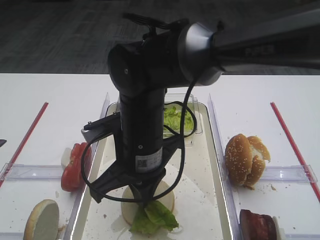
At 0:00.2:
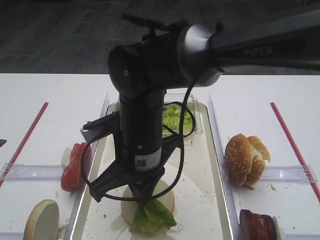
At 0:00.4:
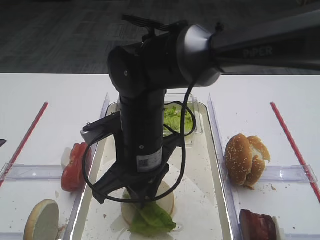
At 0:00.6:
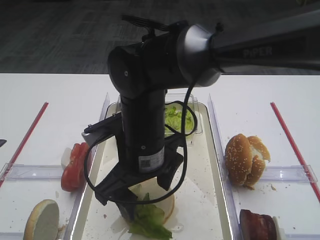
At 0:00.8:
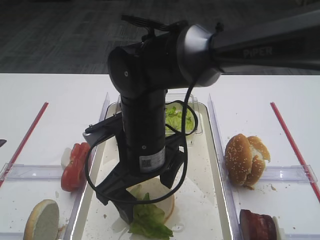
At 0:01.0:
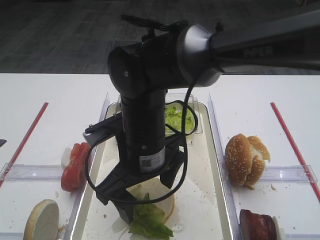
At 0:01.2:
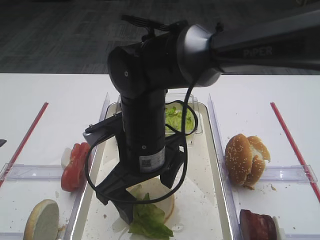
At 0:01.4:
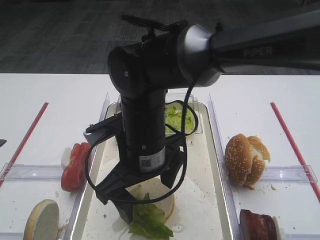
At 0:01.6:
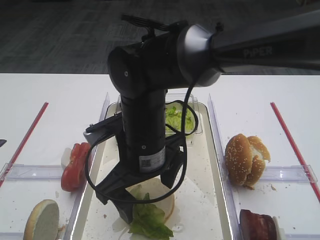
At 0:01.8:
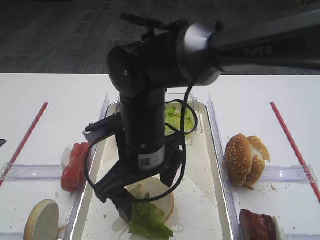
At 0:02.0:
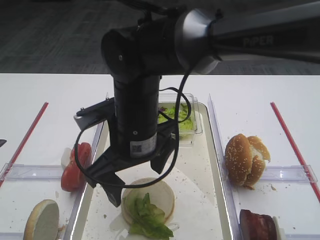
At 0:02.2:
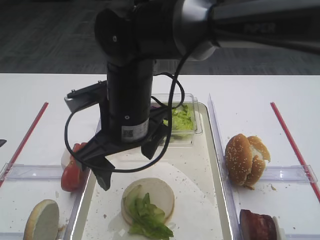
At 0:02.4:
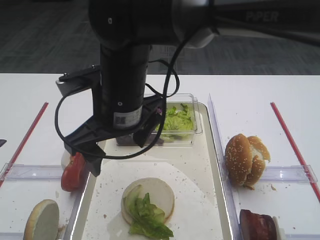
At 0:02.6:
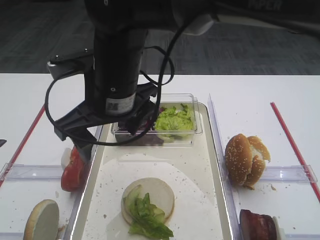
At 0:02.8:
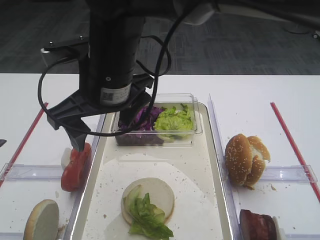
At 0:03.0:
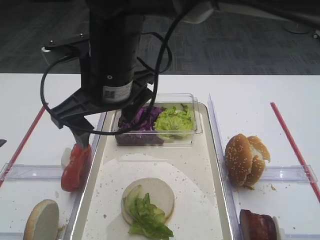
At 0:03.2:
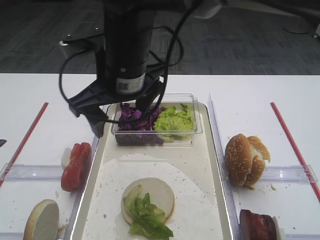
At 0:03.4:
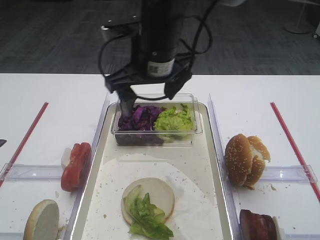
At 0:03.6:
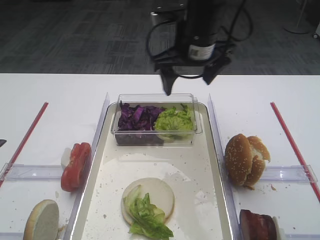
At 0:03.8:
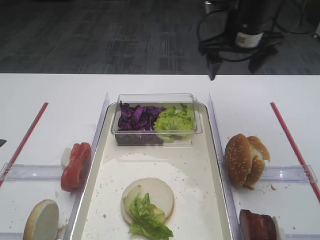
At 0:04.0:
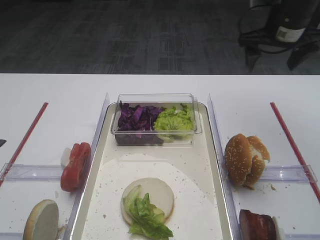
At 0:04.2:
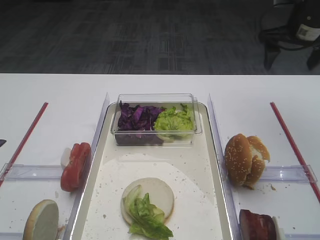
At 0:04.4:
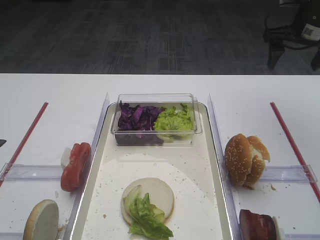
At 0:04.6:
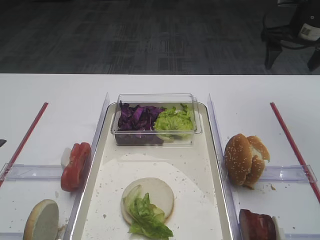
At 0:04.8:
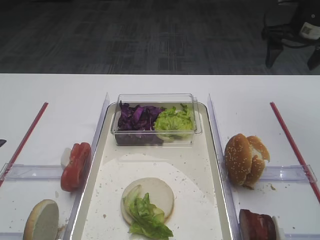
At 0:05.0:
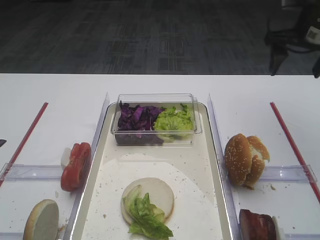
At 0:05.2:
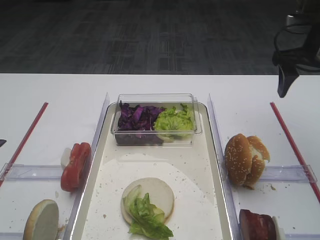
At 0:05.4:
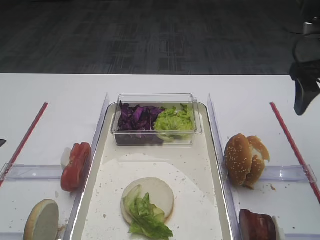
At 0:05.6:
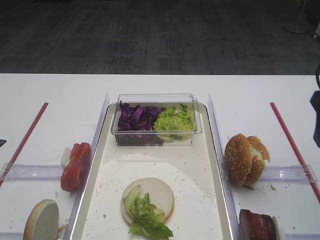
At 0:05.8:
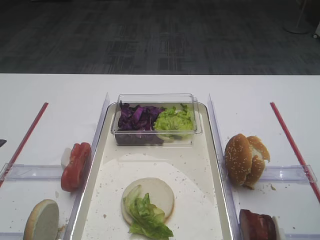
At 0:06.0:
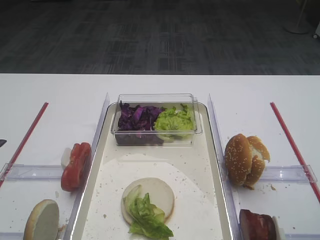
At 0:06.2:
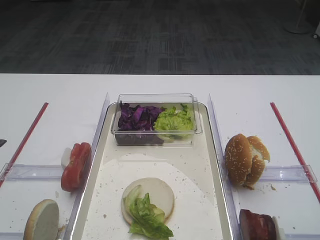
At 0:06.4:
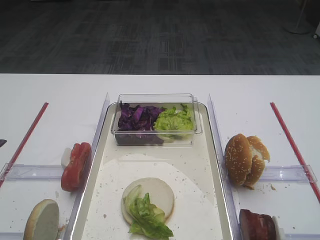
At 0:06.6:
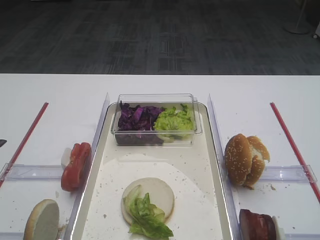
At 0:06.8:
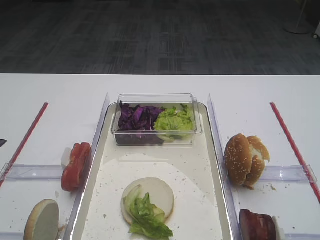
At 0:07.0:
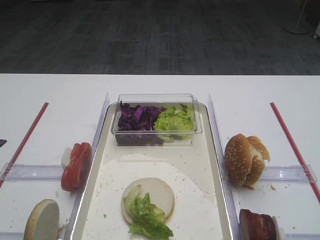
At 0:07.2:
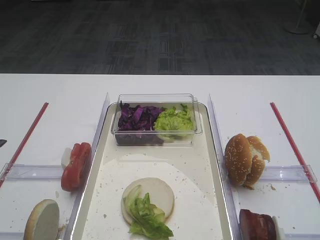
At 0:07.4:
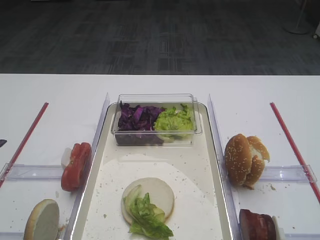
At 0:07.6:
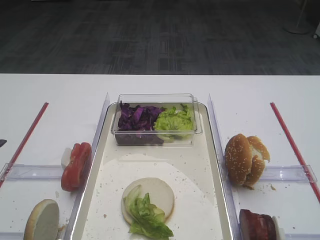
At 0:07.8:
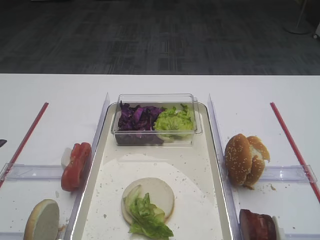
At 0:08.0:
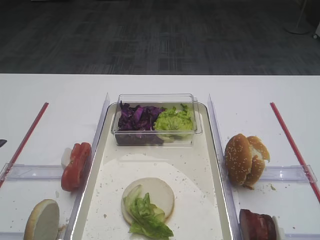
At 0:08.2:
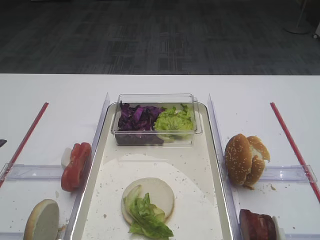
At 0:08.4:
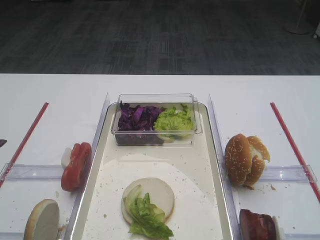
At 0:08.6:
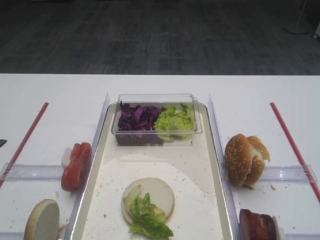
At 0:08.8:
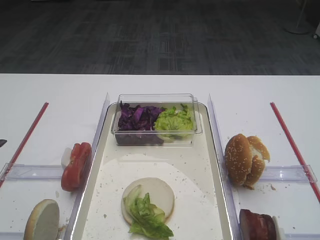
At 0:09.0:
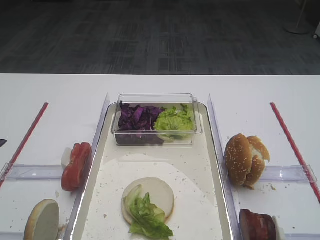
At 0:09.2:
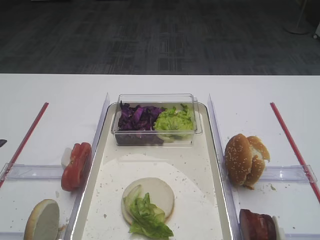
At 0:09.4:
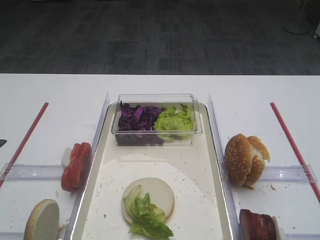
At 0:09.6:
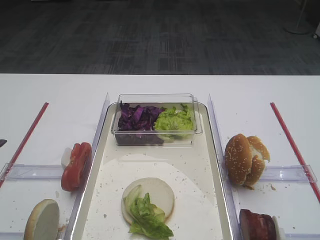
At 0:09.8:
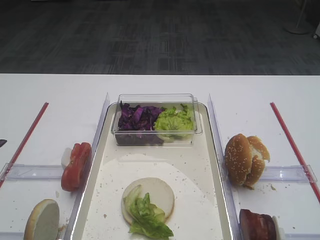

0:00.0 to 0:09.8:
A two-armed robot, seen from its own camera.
Step, 0:00.0 to 0:02.0: Place the lettuce leaf on the bread slice with the right gripper.
0:00.0 to 0:01.4: The right gripper opens.
0:01.4 to 0:02.8: The right gripper shifts roughly 10 cm upward.
0:02.8 to 0:04.2: The right gripper goes about 35 cm to the right and forward.
0:04.2 to 0:05.6: The right gripper heads backward, covering some 20 cm.
0:05.6 to 0:07.0: The right gripper travels backward by some 25 cm.
0:08.4 to 0:09.8: Both grippers stay about where they are.
